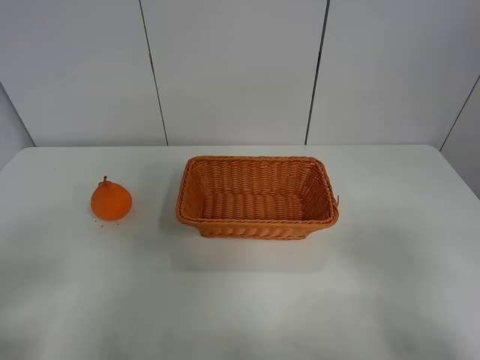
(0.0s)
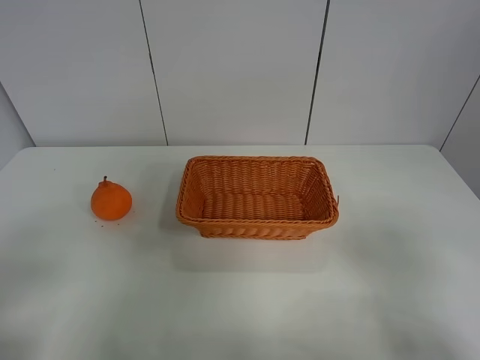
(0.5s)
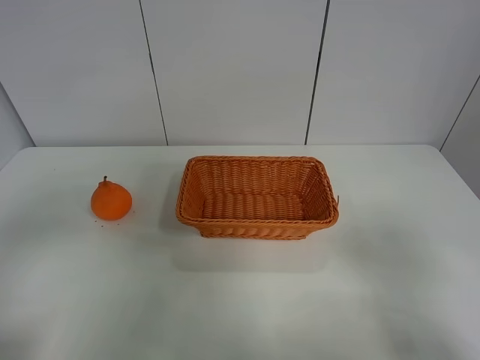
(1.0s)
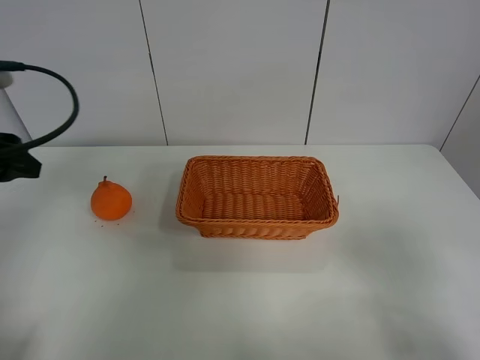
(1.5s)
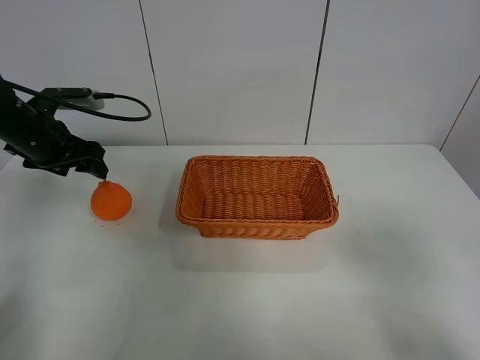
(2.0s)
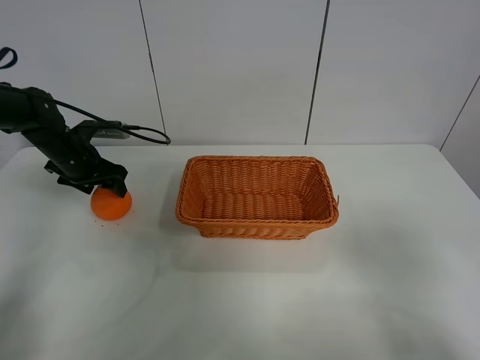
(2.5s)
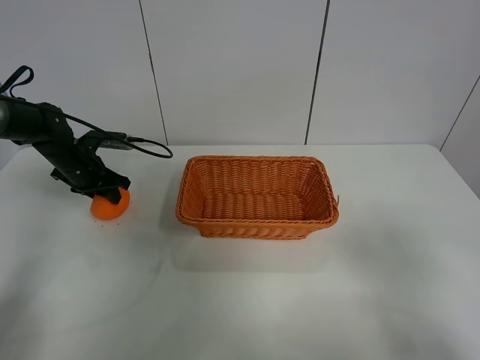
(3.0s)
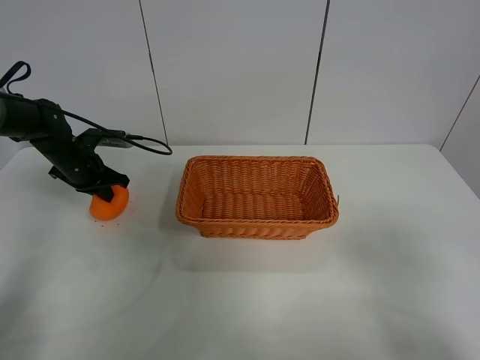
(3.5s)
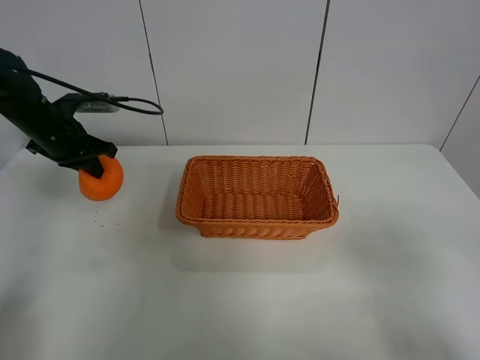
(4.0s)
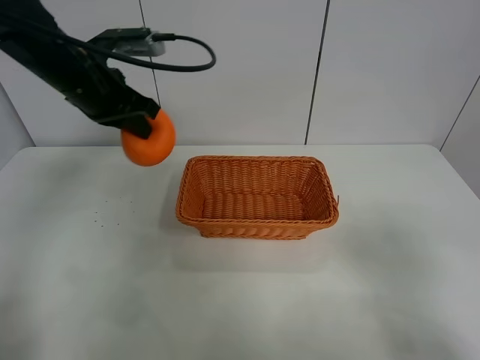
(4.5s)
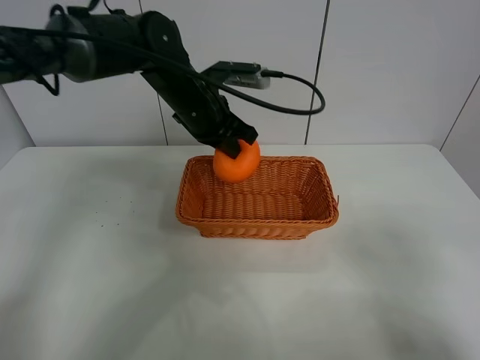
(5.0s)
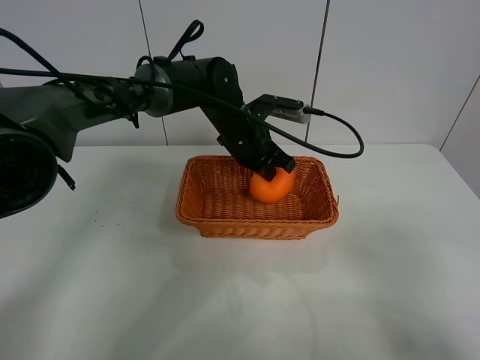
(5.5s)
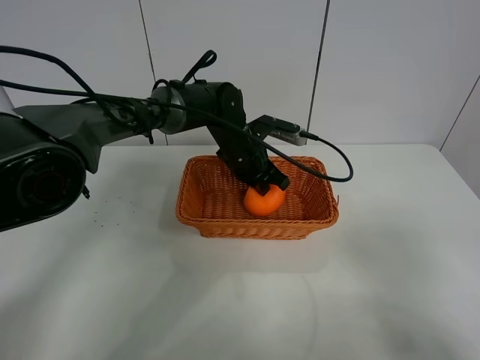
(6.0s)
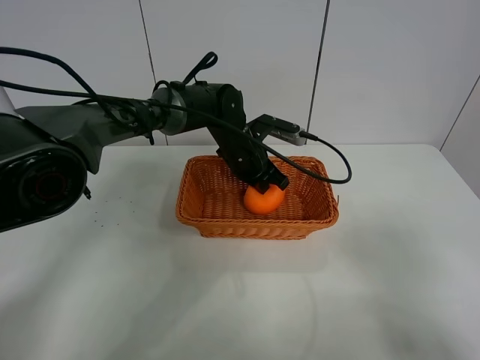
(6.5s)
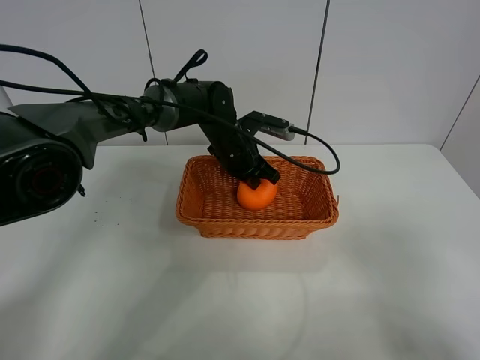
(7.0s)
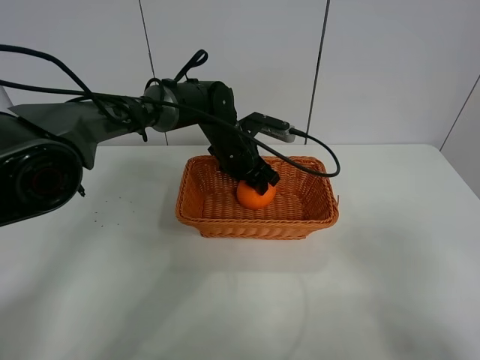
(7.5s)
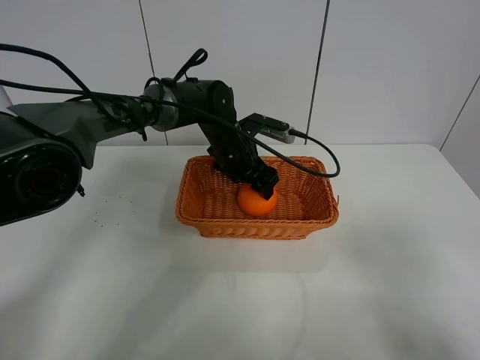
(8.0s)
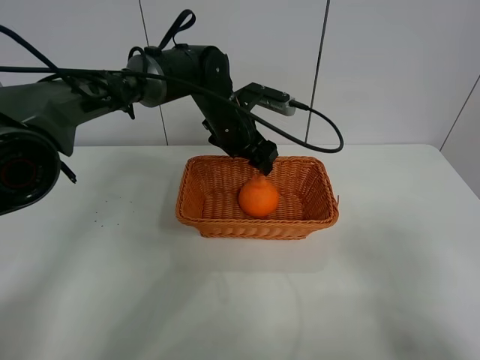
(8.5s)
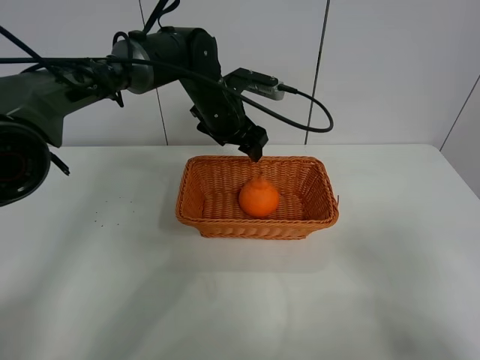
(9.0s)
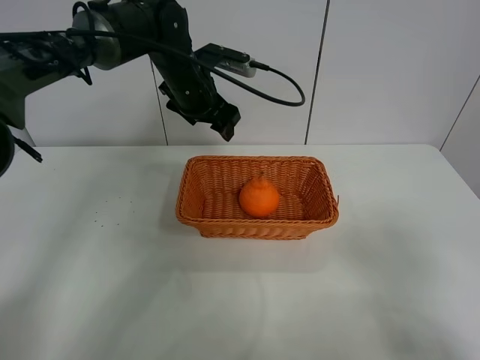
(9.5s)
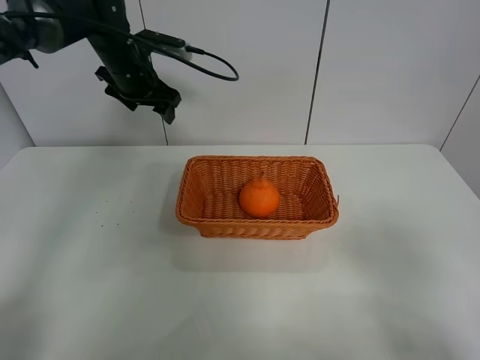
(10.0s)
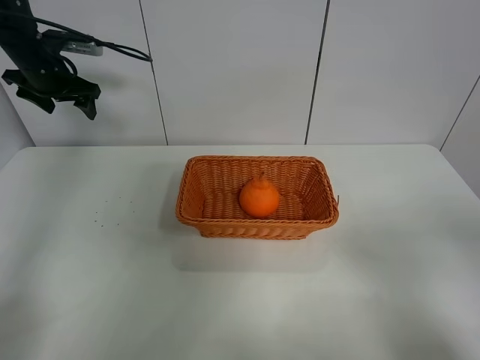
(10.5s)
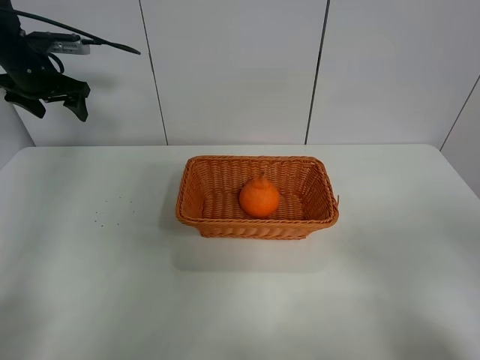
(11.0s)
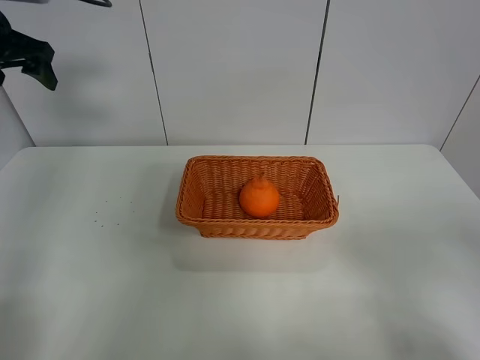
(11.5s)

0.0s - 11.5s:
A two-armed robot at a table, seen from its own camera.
Task of the whole recording: left gripper grabs oranges and puts them in the basket.
Step, 0.0s - 3.5s: Grasp the orange with left gripper.
Step, 4.0s - 9.5s: Place the orange in the basket with left gripper.
0.0s - 2.0s: The left gripper shifts some 35 cm forward.
2.0s - 4.0s: The left gripper goes downward and returns, roughly 10 cm each way, and closes its fingers.
4.0s - 6.0s: The left gripper shifts roughly 30 cm to the right.
6.0s - 7.5s: The left gripper opens up.
7.5s - 9.5s: The left gripper shifts roughly 15 cm upward and to the left.
9.5s - 11.5s: The left gripper shifts approximately 30 cm to the left and upward.

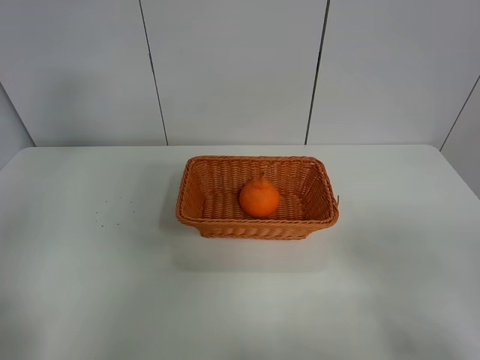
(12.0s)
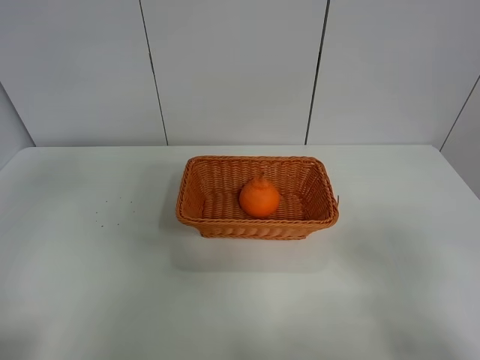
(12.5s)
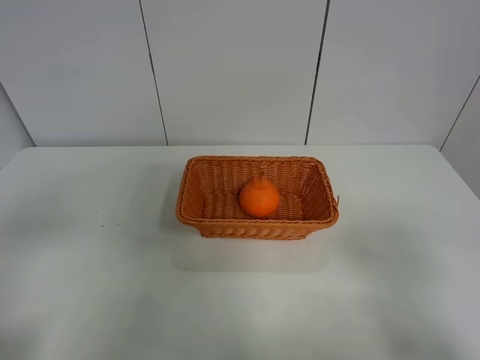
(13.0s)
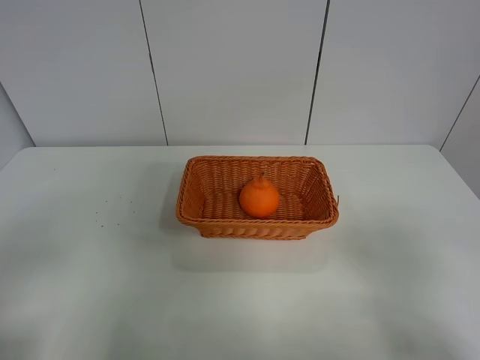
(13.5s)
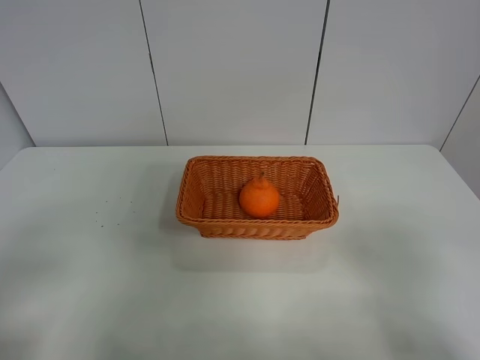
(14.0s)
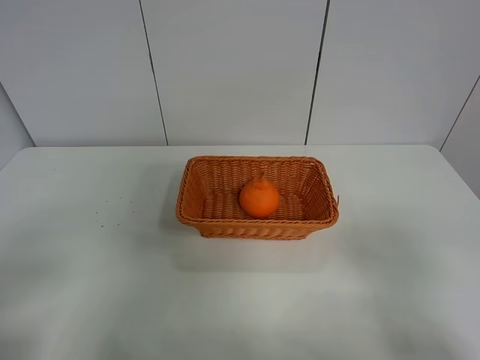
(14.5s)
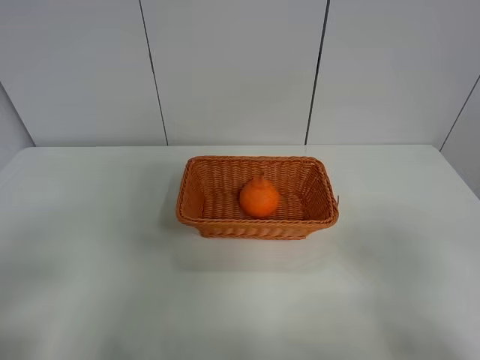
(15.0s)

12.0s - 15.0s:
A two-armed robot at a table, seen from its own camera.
Task of the whole recording: left gripper grabs oranges and puts them in the basket.
12.0s - 13.5s: The left gripper heads backward and downward, covering some 30 cm.
